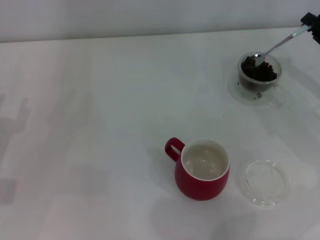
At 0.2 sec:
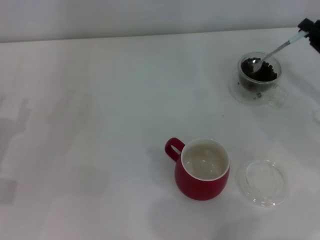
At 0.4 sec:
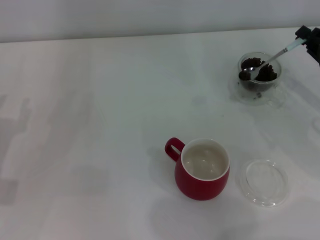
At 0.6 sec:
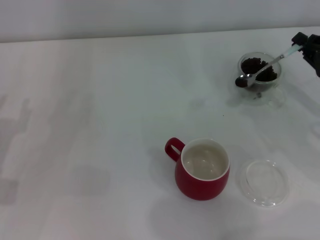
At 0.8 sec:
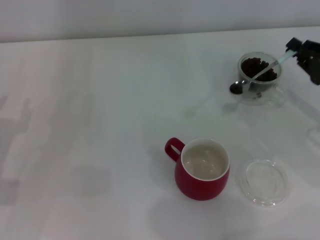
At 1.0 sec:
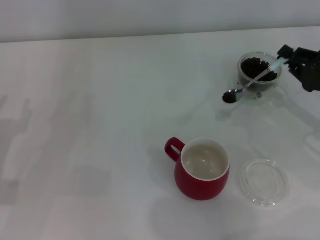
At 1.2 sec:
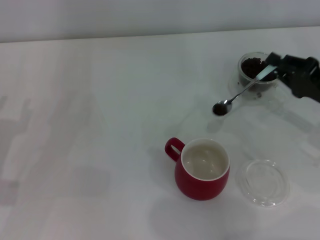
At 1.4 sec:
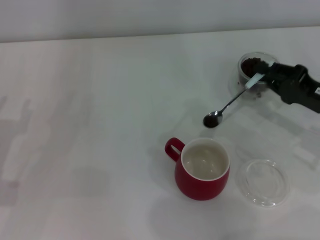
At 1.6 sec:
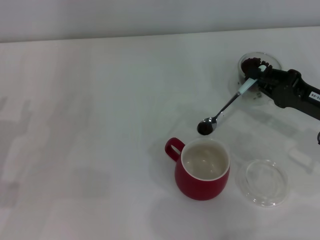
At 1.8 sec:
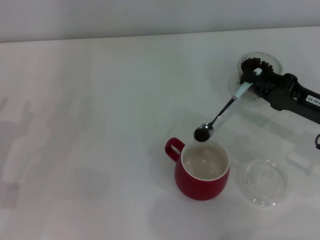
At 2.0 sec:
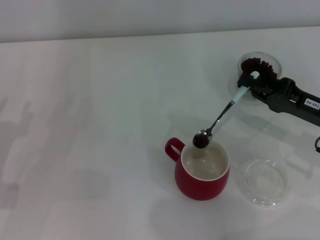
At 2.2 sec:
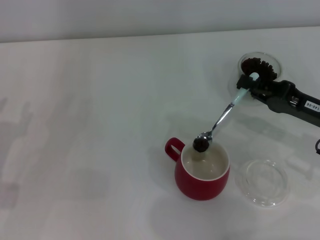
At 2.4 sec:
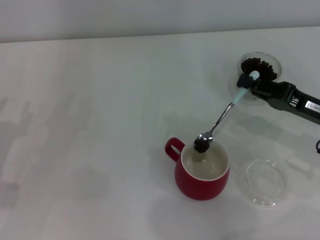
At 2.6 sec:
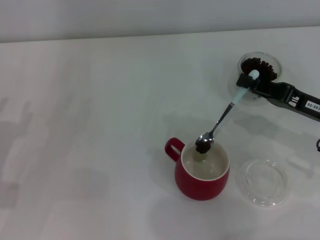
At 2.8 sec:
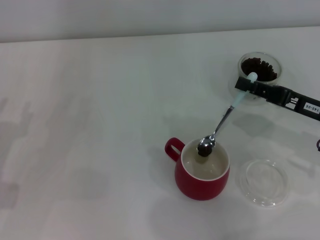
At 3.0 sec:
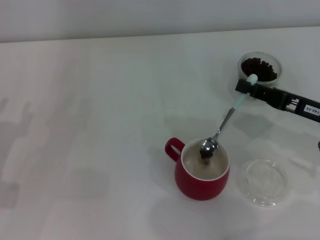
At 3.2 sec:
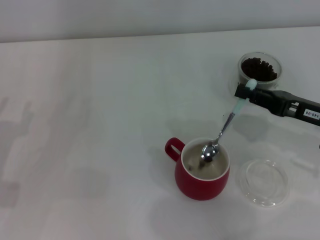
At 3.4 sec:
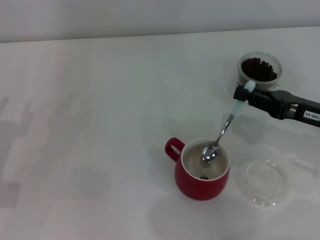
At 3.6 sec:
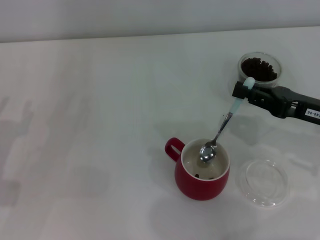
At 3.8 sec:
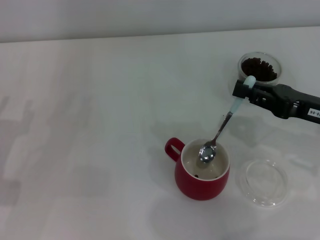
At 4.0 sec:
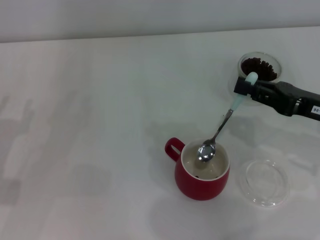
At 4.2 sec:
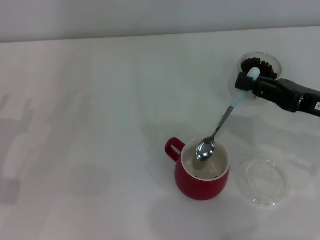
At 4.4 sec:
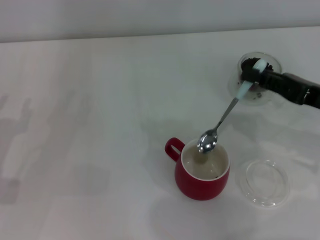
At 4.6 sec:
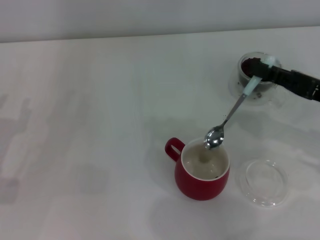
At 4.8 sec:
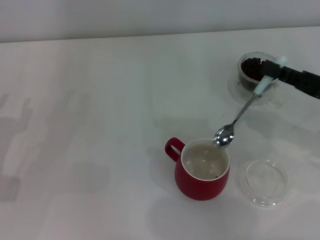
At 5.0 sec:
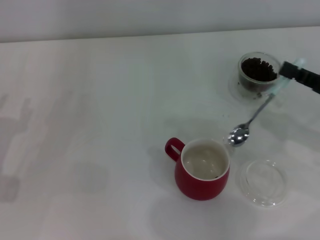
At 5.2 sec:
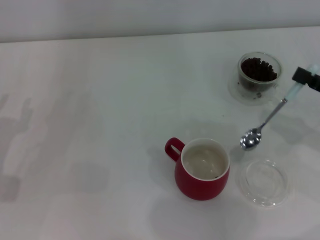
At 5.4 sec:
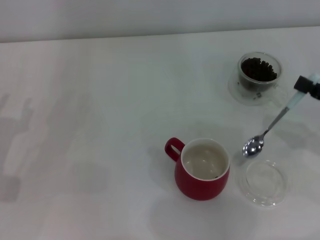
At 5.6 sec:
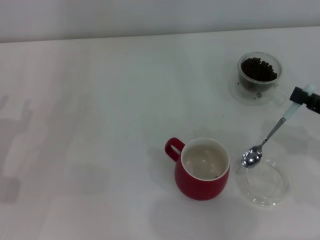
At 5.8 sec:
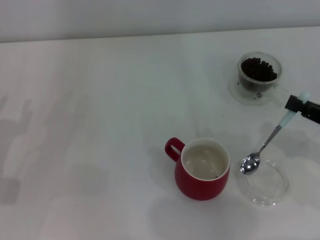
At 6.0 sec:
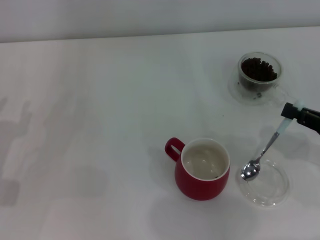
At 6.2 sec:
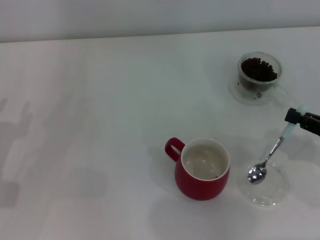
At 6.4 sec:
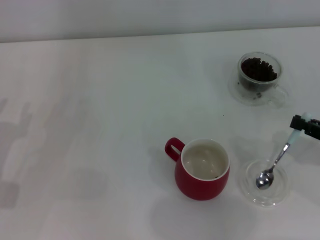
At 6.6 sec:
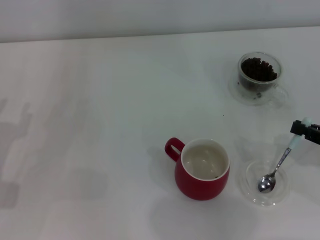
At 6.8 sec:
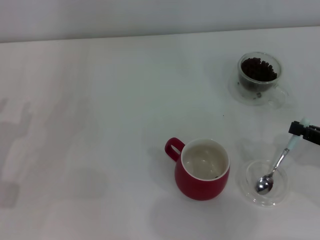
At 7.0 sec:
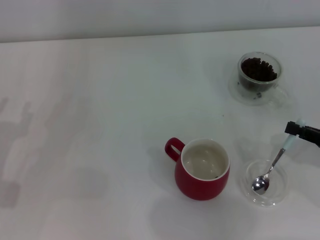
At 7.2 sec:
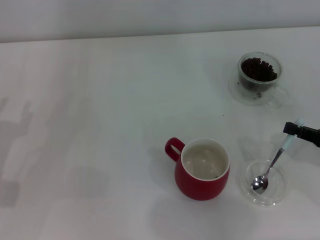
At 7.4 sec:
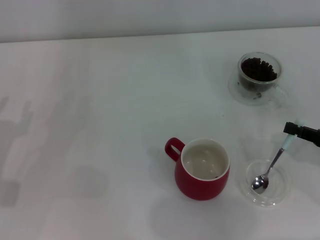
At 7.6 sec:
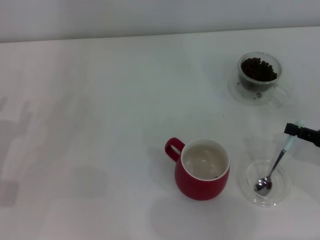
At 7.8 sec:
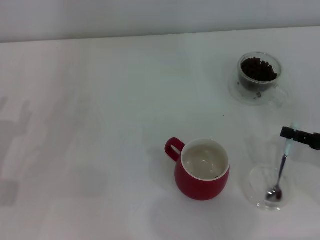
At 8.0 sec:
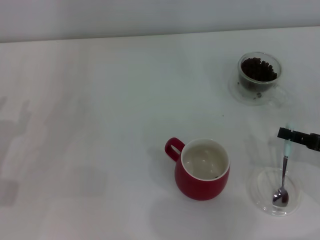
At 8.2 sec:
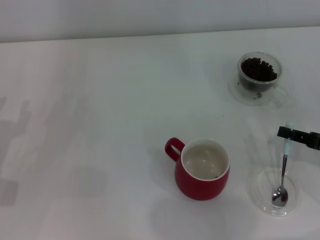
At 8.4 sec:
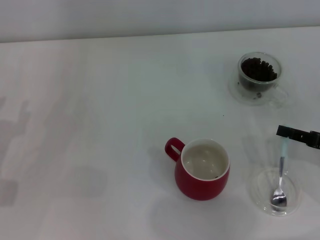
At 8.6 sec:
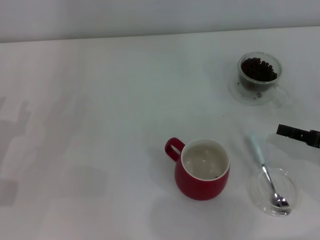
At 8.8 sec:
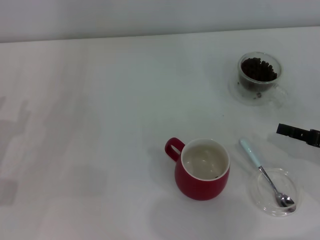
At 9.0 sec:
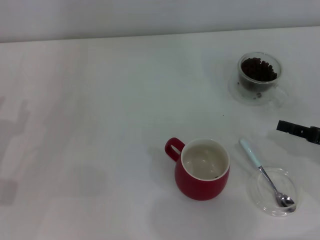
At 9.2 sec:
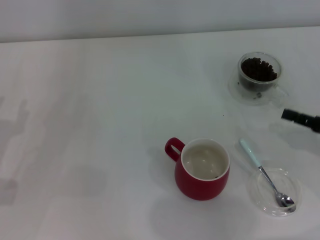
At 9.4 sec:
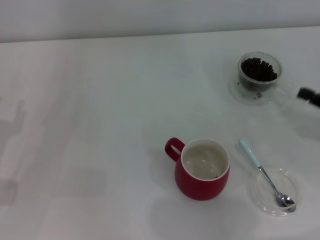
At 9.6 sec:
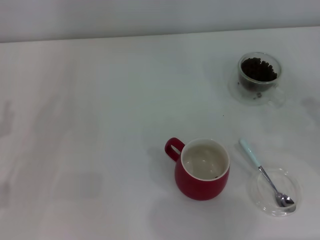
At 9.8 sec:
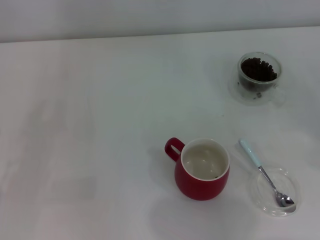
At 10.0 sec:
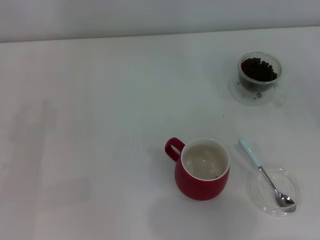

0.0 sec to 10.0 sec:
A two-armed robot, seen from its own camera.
Task of the whole recording: Use a blue spoon to take out the coffee beans from the glass and pour them into the red cup.
Step, 0.0 sec to 3.4 sec: Scoop a spoonful of beans into the cup with the right gripper.
Step, 3.8 sec to 8.4 sec: Place the spoon back in its original place with the right gripper.
0.0 sec to 1.4 sec: The right gripper is displaced to the left and backward by approximately 10 cm.
2.8 sec to 4.2 sec: The grippers move only a little.
4.2 sec to 5.8 sec: The right gripper goes some 5 cm to the right.
5.8 sec to 7.2 sec: The grippers make only small movements.
7.2 sec to 8.6 sec: There are only small adjustments of the grippers.
8.6 sec to 10.0 sec: The right gripper shifts some 10 cm to the right.
